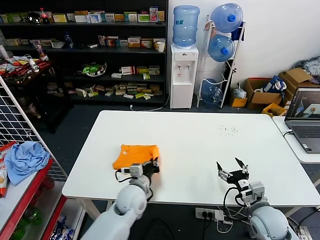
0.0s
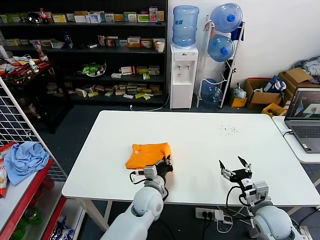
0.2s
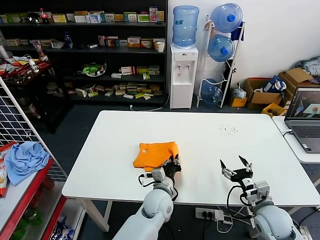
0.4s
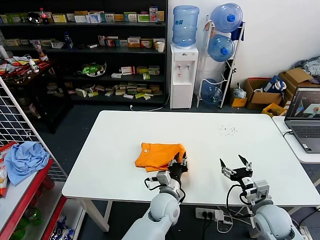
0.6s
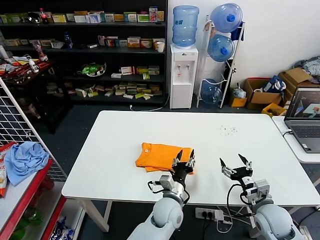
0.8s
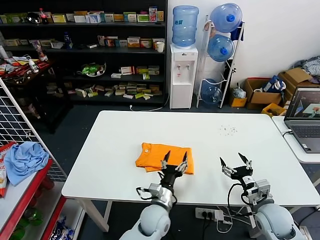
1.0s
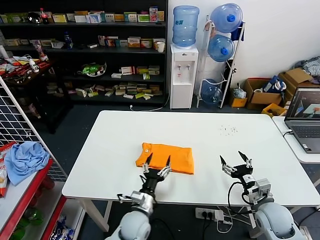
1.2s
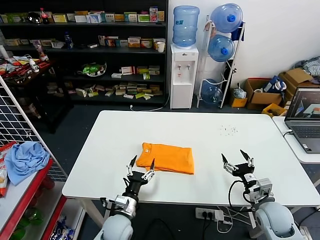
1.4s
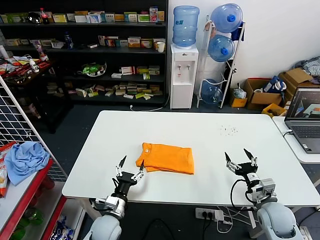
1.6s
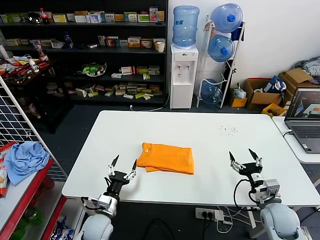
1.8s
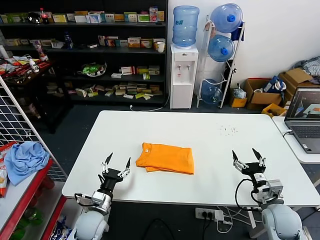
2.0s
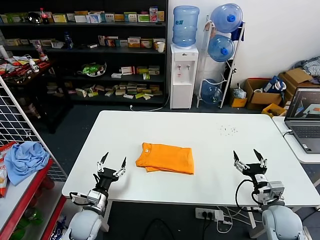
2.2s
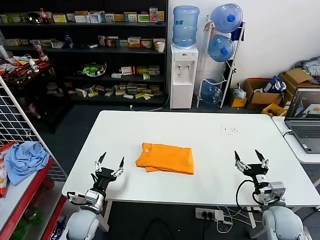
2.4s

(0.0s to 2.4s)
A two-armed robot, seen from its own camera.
Task of the whole recording: fold and organize the clothes.
0.0s - 1.2s: The left gripper is displaced downward, to the right and backward by some 10 cm, and opens its fingers.
1.2s - 2.4s: The left gripper is displaced to the left by some 20 cm.

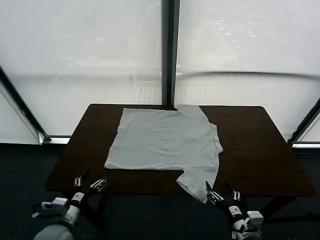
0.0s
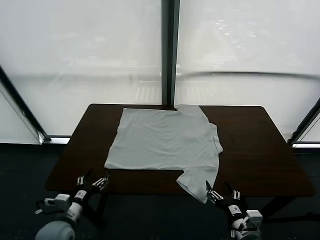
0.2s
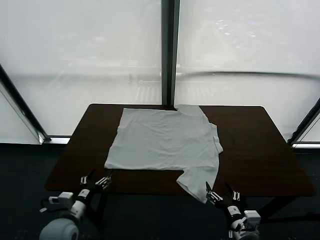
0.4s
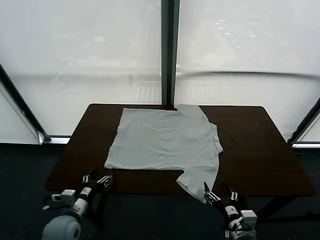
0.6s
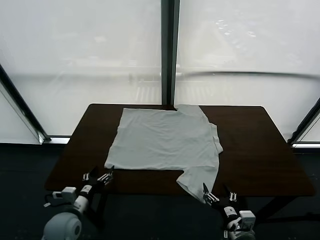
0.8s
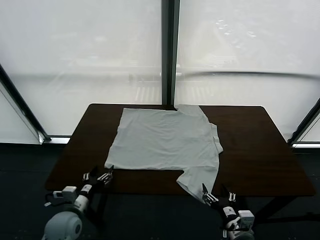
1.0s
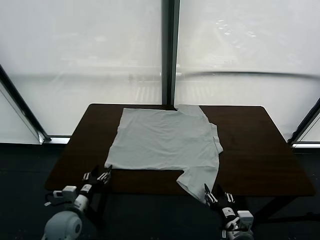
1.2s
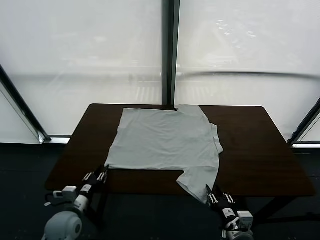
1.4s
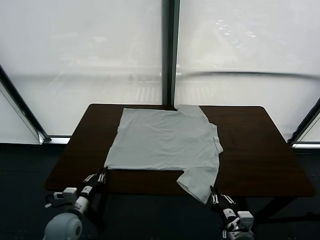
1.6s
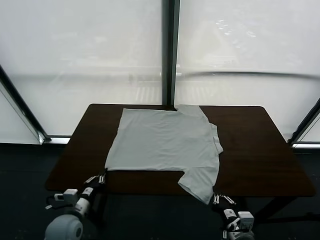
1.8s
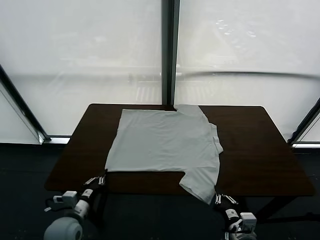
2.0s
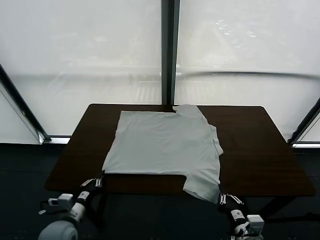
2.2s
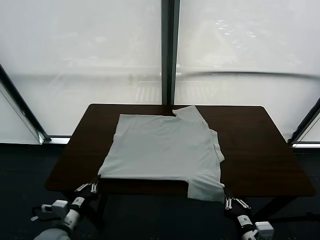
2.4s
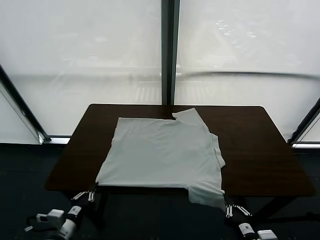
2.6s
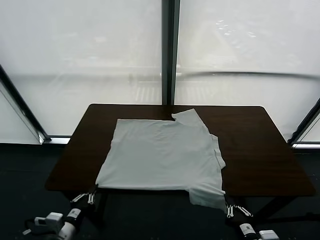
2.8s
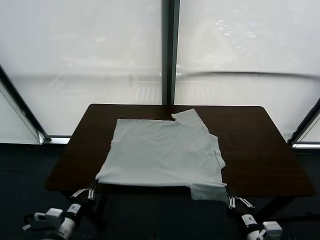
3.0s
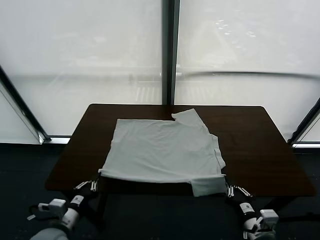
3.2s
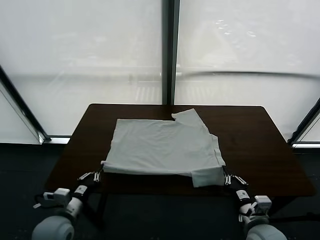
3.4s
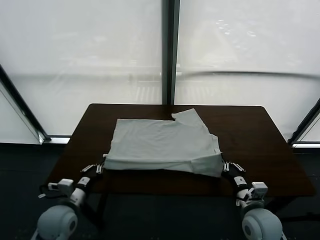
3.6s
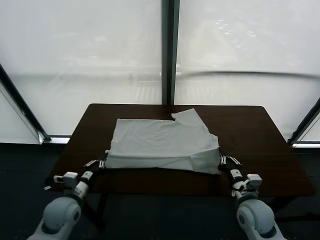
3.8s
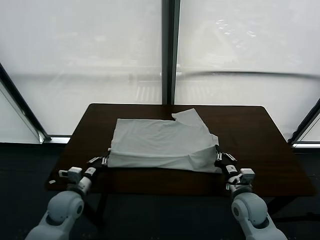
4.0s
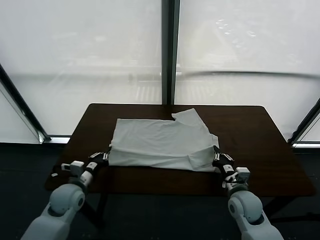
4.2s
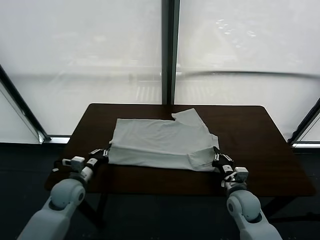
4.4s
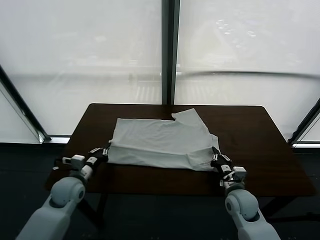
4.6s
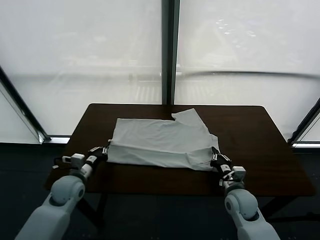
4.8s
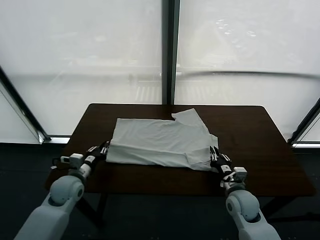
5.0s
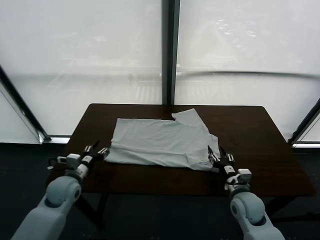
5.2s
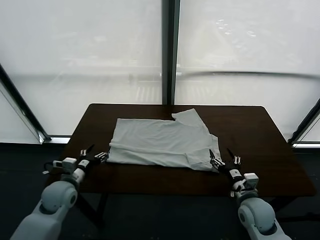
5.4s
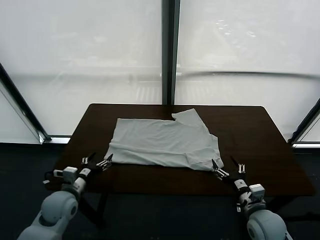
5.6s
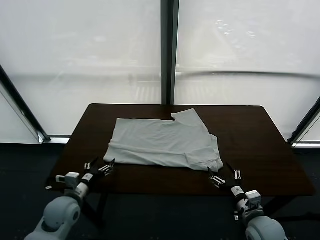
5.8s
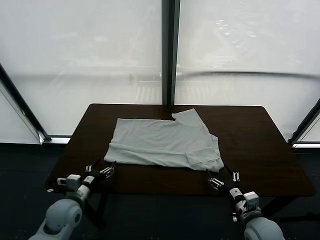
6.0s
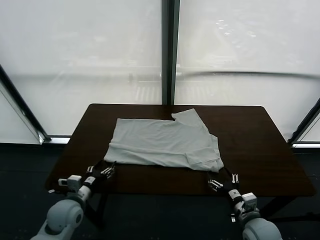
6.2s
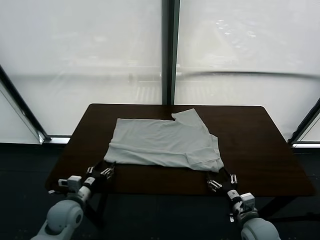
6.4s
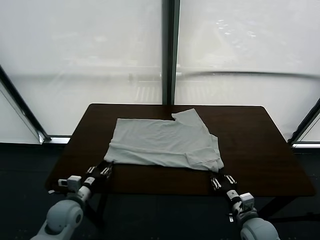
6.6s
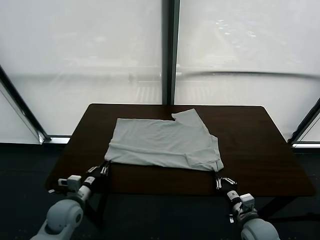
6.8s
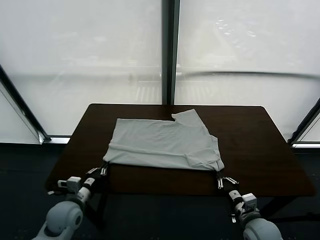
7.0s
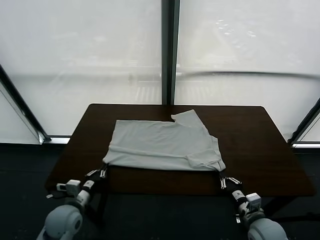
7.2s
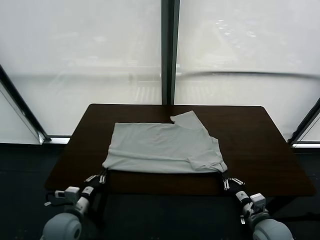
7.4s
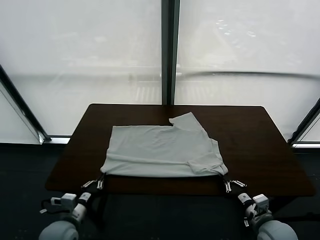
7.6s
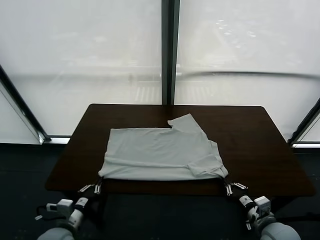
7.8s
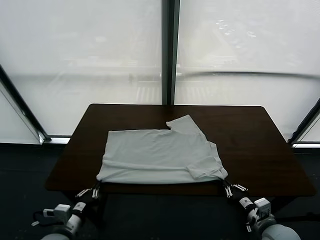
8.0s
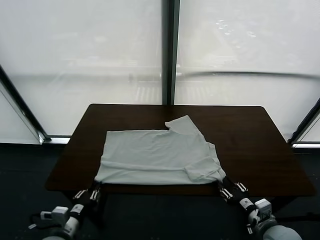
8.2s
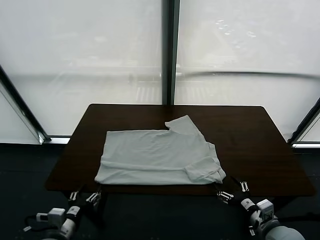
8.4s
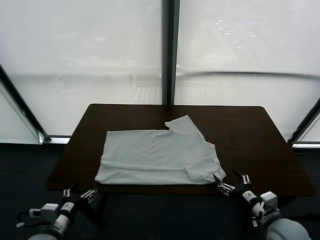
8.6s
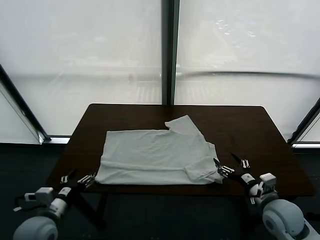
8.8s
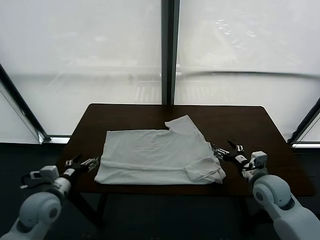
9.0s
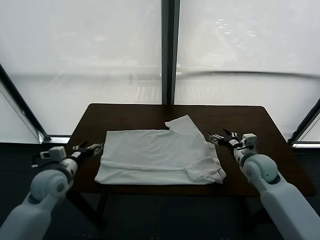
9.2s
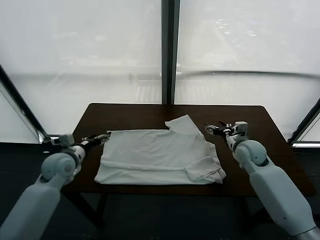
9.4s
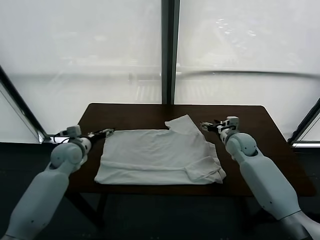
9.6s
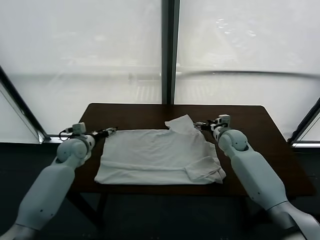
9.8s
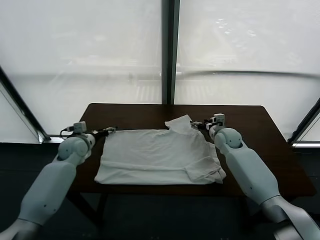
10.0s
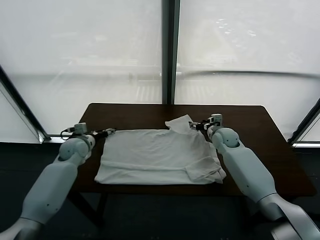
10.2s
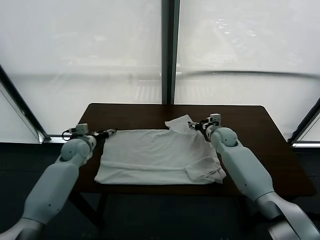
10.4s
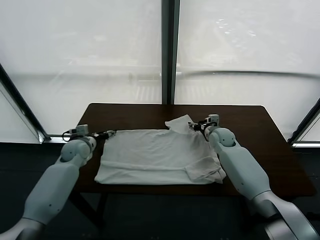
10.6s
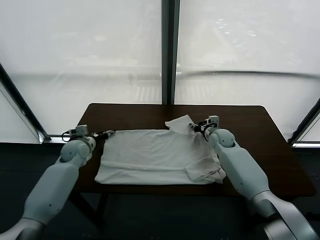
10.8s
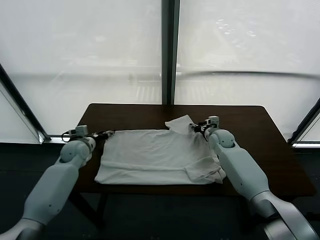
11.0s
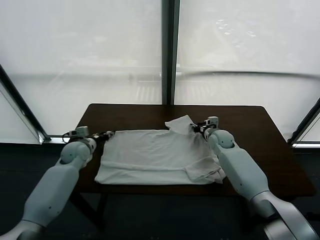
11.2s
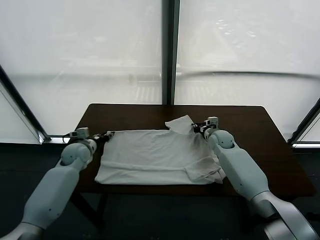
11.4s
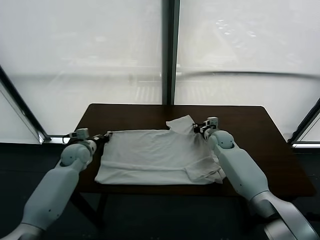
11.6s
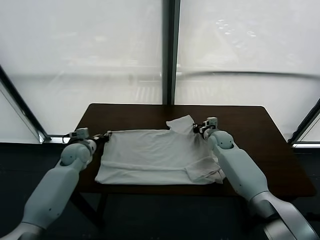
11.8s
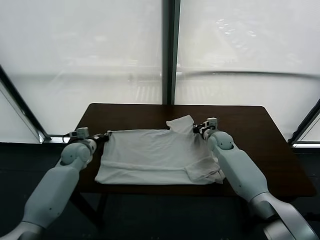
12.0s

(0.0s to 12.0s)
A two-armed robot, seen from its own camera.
Task of the whole recording: fold and organize the clothes.
Step, 0.0s - 2.0s: use both grippers simultaneously to clamp the lower edge of the clothing fabric.
Step, 2.2s - 5.2s: use both grippers to drag the lower edge of the fabric forward and fold it over the upper edge.
Step, 5.4s - 8.2s: Drag the clothes downward with both gripper.
1.6s - 3.0s: The right gripper moves some 5 cm, while the left gripper heads upward, covering about 5 cm, and travels backward and back again, about 10 cm each way.
3.0s - 4.4s: The left gripper moves forward, some 15 cm. Meanwhile the right gripper travels forward and downward by roughly 15 cm.
4.4s - 6.0s: Both grippers move backward, roughly 10 cm. The left gripper opens up; the right gripper opens its fingers.
6.0s - 7.6s: The left gripper heads backward, covering some 10 cm, and closes its fingers, while the right gripper changes place by roughly 5 cm, and closes up.
7.6s - 9.0s: Both grippers travel together forward, some 20 cm. The right gripper opens. Meanwhile the left gripper opens.
9.0s - 10.4s: The left gripper travels forward by some 10 cm, while the right gripper travels forward, to the left and downward by some 15 cm.
10.4s - 12.0s: The left gripper closes its fingers. Meanwhile the right gripper closes up.

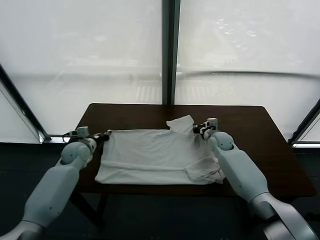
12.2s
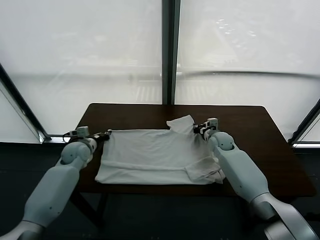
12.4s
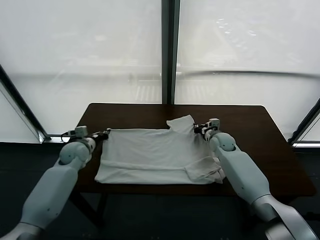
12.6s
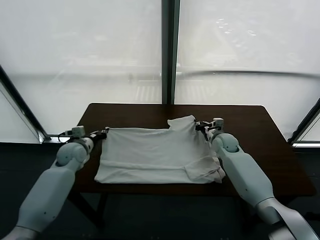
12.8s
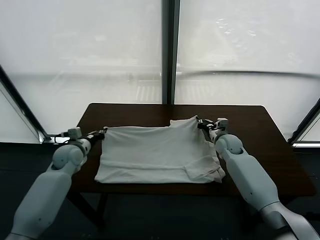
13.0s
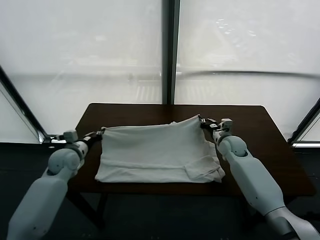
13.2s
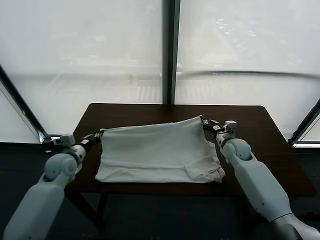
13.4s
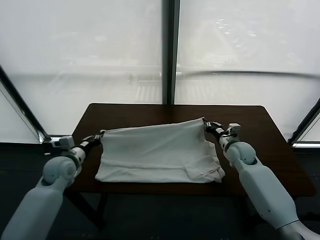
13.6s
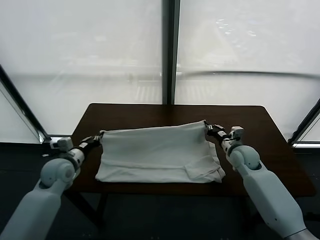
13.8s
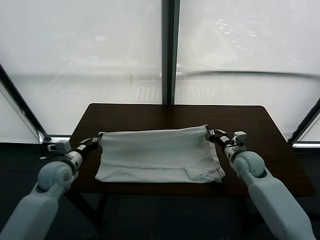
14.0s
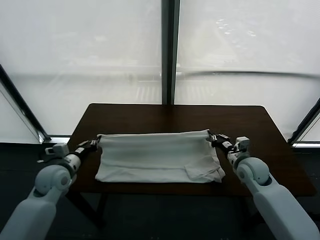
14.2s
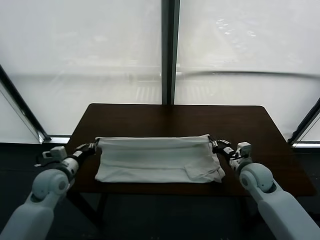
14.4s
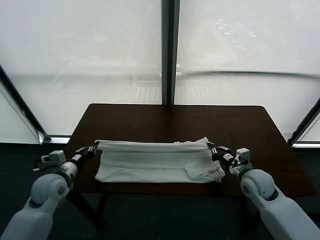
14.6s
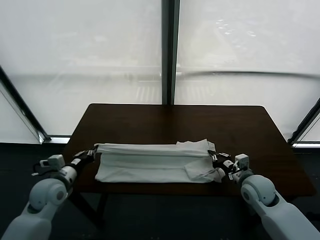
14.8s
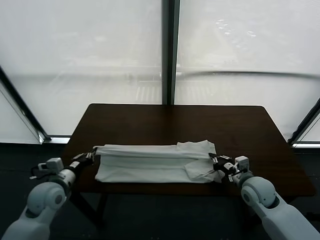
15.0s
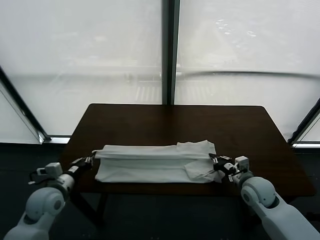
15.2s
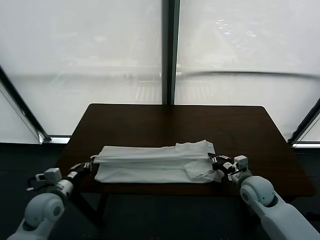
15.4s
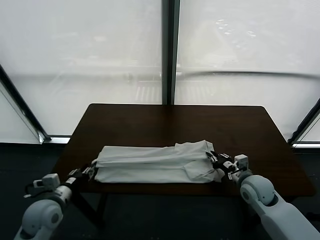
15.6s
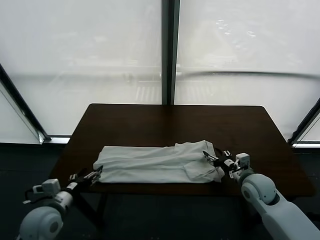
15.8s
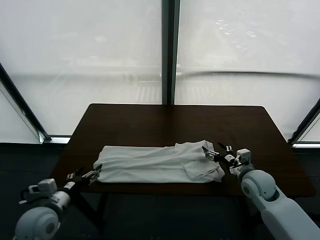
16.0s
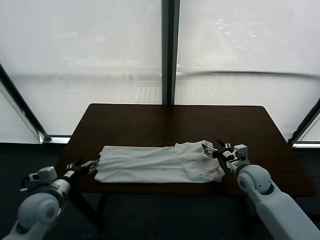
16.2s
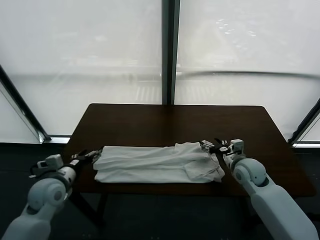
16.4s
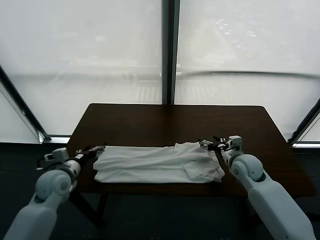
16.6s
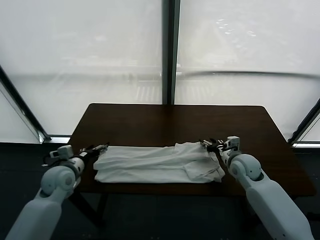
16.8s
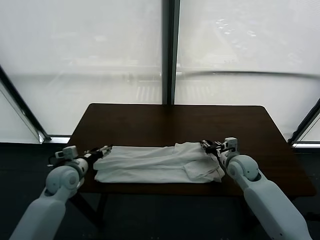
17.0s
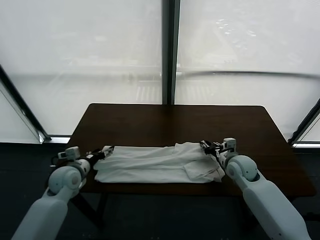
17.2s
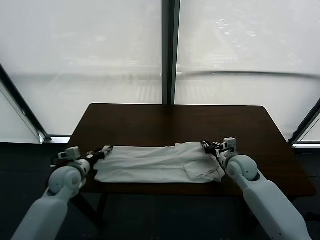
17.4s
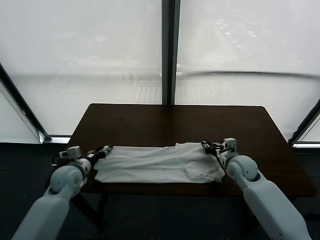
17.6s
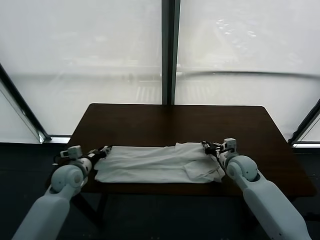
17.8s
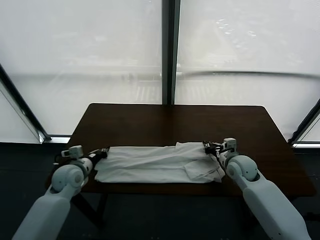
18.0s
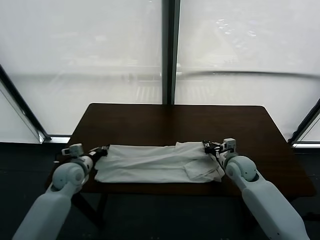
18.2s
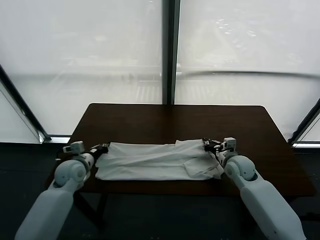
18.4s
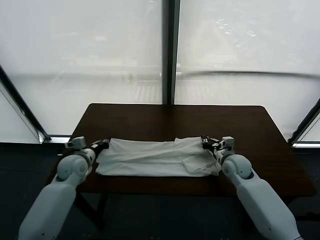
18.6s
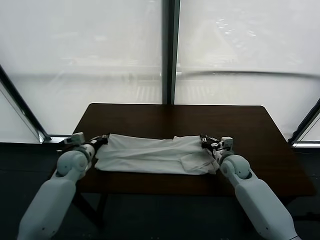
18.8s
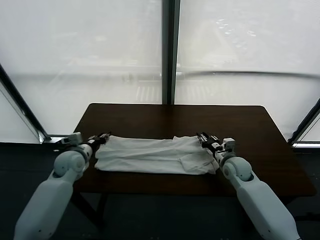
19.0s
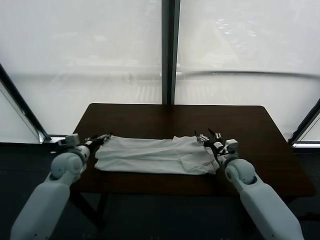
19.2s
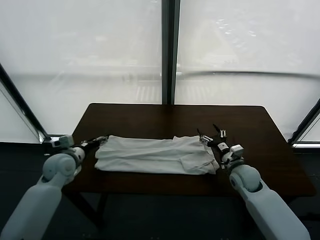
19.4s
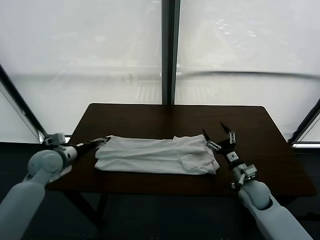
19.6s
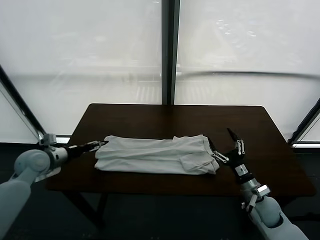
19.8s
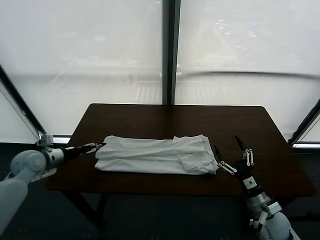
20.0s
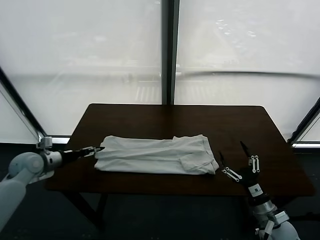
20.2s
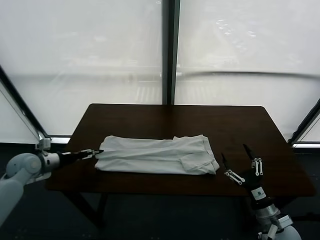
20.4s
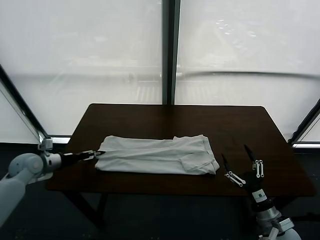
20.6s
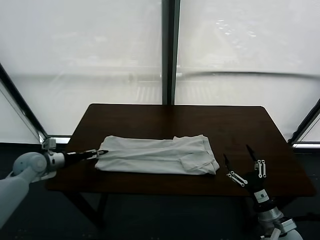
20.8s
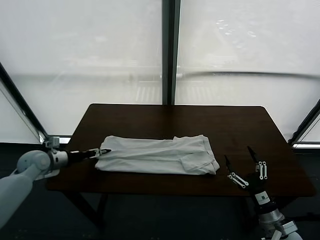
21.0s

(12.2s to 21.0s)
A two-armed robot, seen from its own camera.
Task of the whole recording: fold and organize the clothes.
Step, 12.8s - 15.8s: use both grippers to drag the upper edge of the fabric backward and fold it over the lower edge.
12.2s - 13.6s: The left gripper is displaced backward by roughly 10 cm; the right gripper moves backward and to the right, roughly 10 cm.
13.6s - 15.2s: Both grippers move backward, roughly 10 cm. The right gripper opens its fingers. The left gripper opens its fingers.
15.2s - 16.6s: The grippers both shift forward by roughly 10 cm. The left gripper opens up, while the right gripper opens, then closes again.
16.6s - 18.0s: The right gripper closes its fingers, while the left gripper closes up.
18.0s - 19.6s: The left gripper travels to the left and upward by approximately 15 cm, and opens up. The right gripper shifts some 15 cm backward and downward, and opens up.
19.6s - 21.0s: The right gripper heads backward, covering roughly 10 cm.
